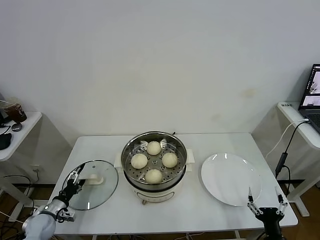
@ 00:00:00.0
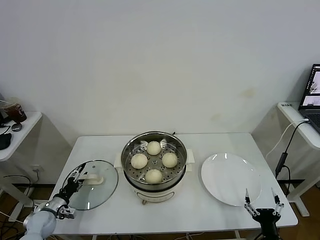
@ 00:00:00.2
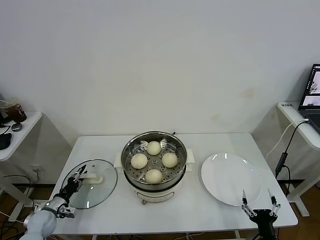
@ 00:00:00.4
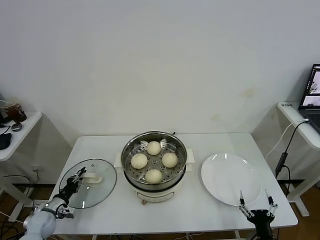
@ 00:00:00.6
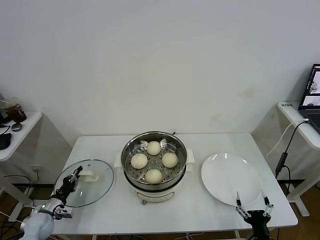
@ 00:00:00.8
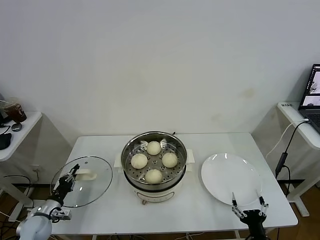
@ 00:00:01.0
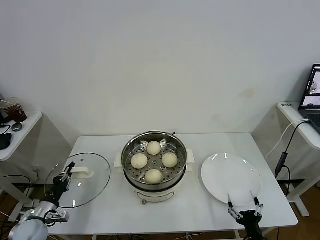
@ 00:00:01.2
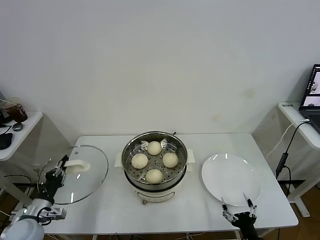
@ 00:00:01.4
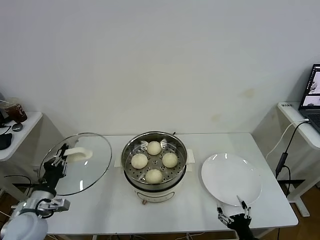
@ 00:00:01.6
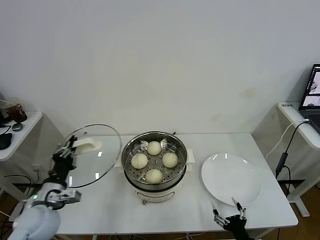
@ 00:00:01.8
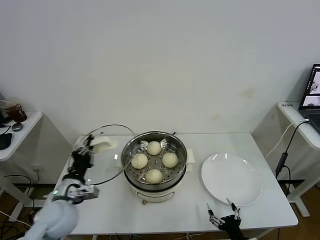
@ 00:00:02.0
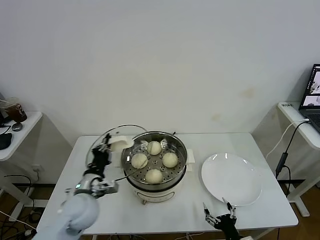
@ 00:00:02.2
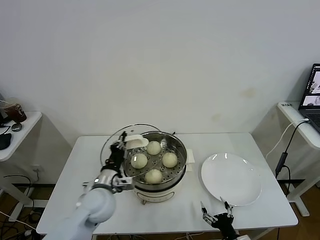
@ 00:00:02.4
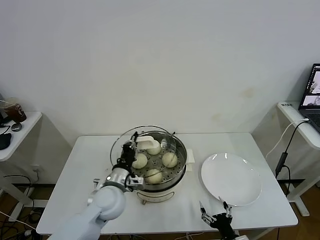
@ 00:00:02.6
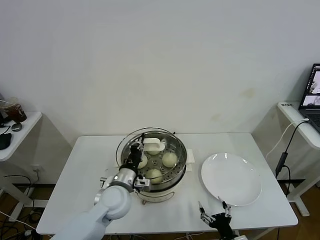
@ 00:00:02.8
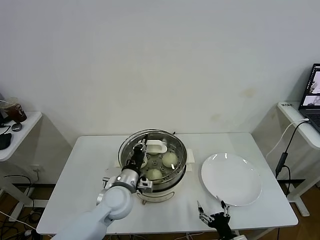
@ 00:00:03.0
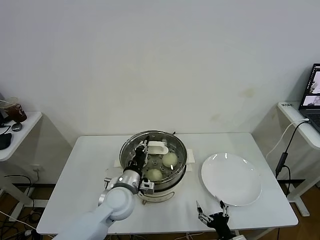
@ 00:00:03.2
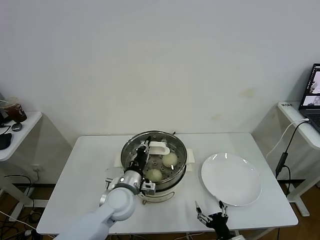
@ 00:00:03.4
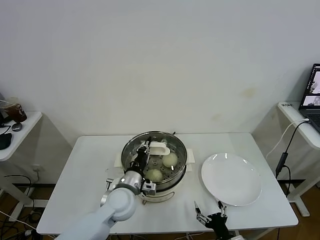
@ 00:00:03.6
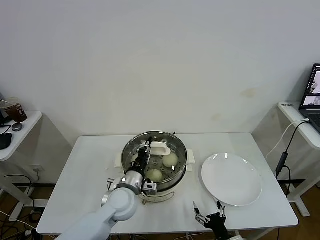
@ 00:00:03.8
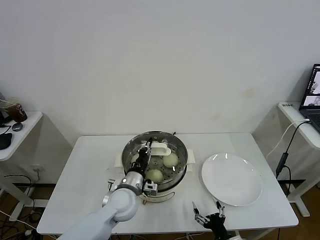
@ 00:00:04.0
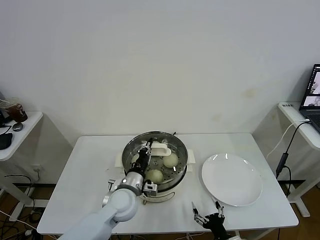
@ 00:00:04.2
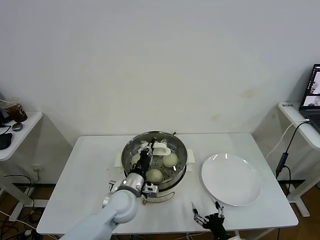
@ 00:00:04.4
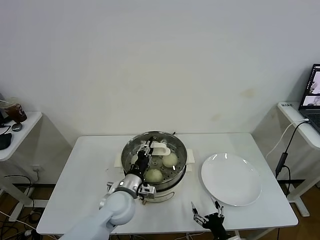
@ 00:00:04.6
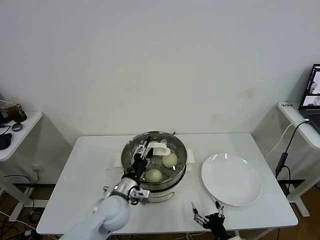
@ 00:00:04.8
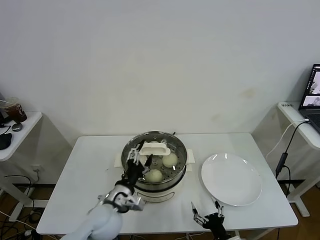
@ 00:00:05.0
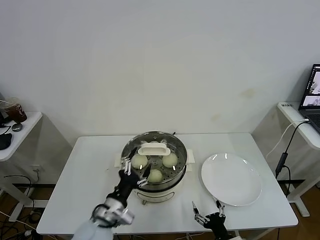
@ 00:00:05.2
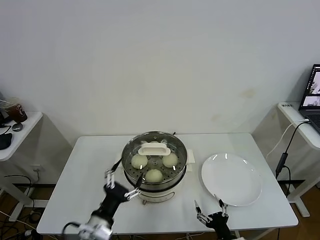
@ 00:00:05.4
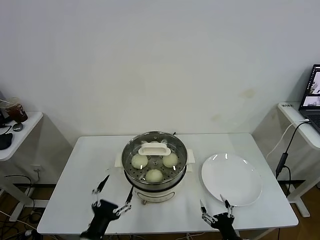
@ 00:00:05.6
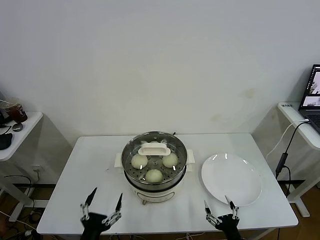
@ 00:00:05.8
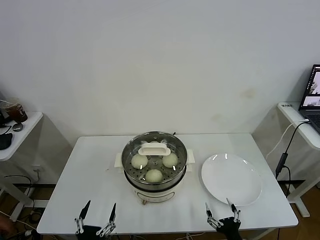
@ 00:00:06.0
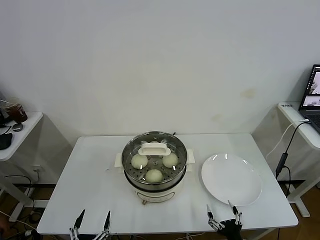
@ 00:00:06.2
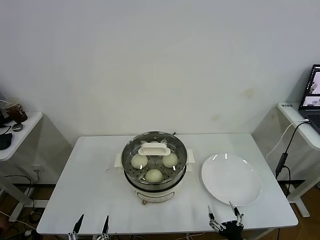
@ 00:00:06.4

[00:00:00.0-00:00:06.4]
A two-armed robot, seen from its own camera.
Task of the whole recording: take steamed baozi put them in steamer.
Step, 00:00:01.0 to 00:00:05.2: Place the pot lid on the steamer with left gripper.
00:00:00.0 to 00:00:01.6: The left gripper travels upward and to the right by approximately 15 cm, and closes.
00:00:01.6 to 00:00:03.2: The right gripper heads to the left, covering approximately 5 cm; the left gripper heads to the right, covering some 25 cm.
00:00:03.2 to 00:00:04.8: The left gripper opens its fingers.
00:00:04.8 to 00:00:06.4: The right gripper ends up roughly 5 cm from where it was. The left gripper moves backward and to the left, about 30 cm, and opens.
